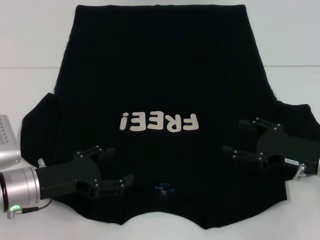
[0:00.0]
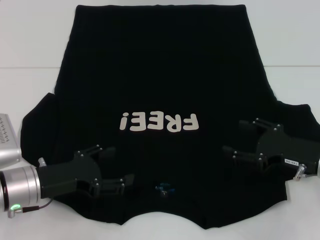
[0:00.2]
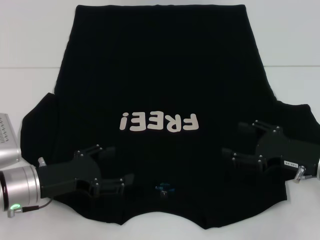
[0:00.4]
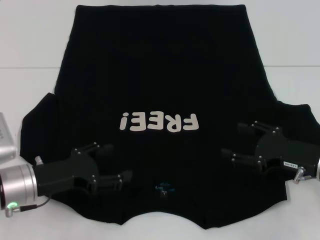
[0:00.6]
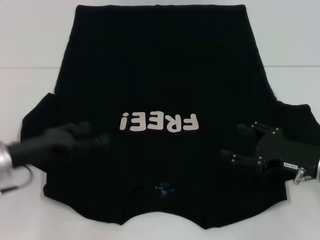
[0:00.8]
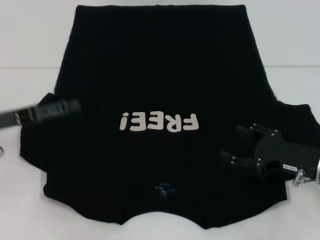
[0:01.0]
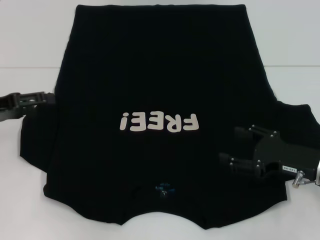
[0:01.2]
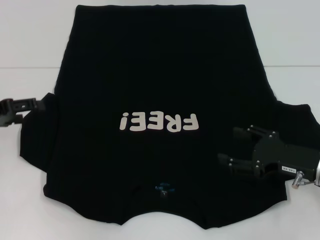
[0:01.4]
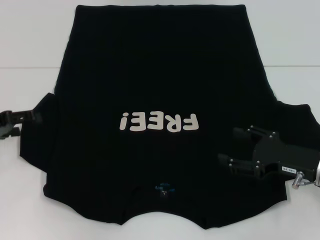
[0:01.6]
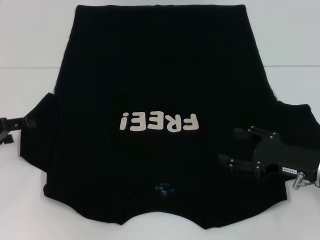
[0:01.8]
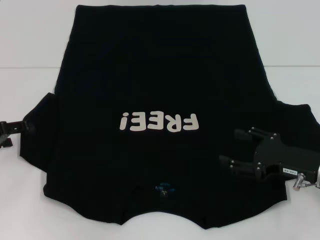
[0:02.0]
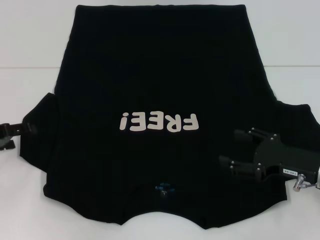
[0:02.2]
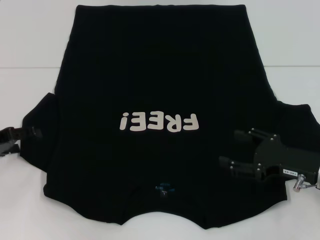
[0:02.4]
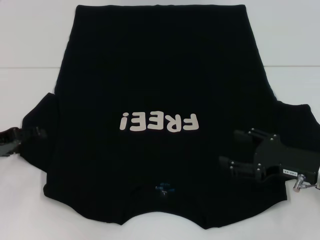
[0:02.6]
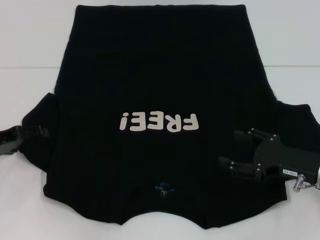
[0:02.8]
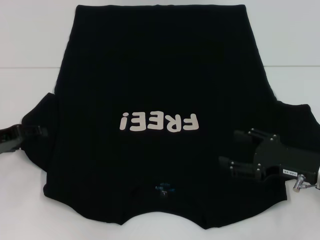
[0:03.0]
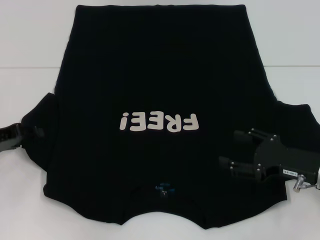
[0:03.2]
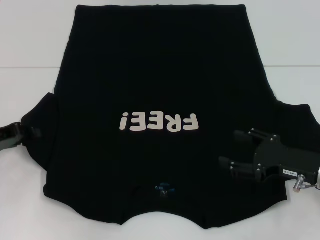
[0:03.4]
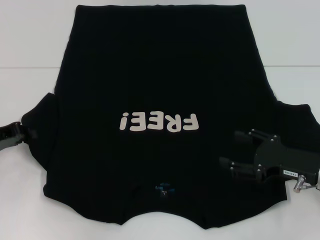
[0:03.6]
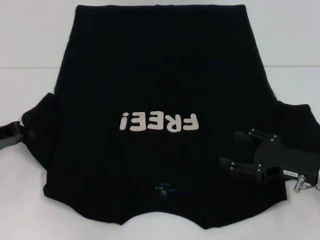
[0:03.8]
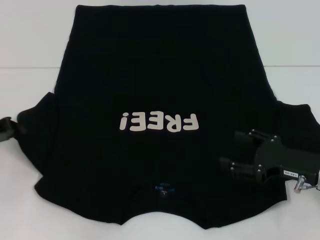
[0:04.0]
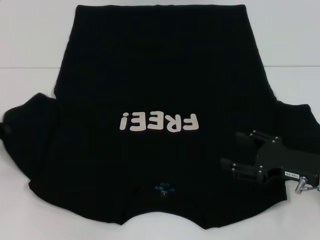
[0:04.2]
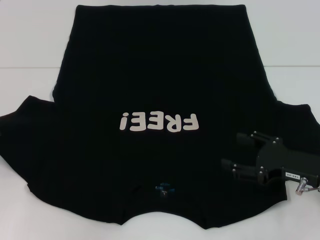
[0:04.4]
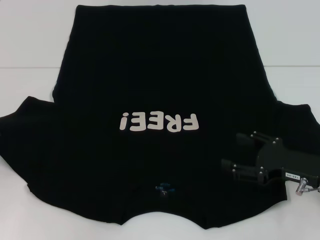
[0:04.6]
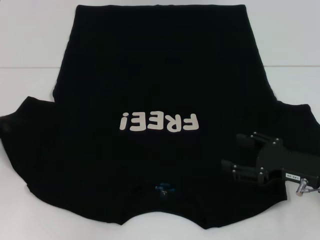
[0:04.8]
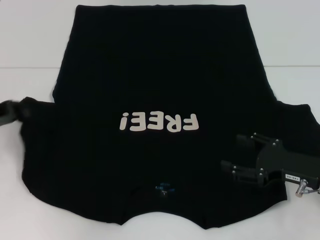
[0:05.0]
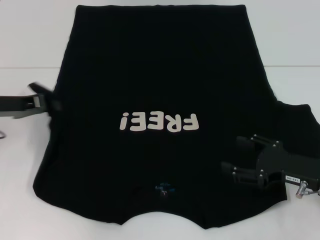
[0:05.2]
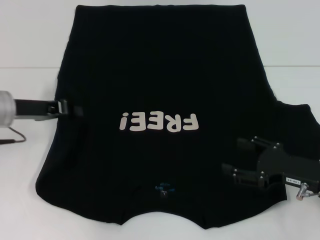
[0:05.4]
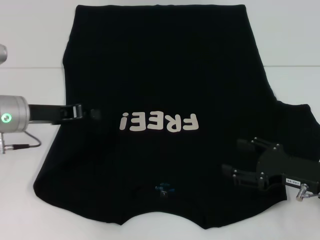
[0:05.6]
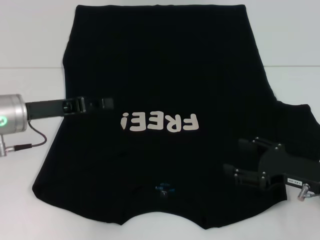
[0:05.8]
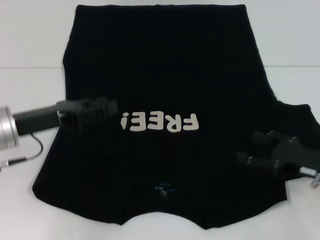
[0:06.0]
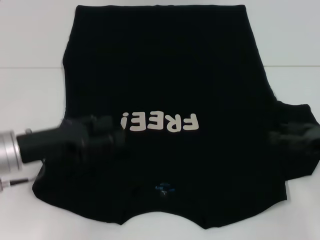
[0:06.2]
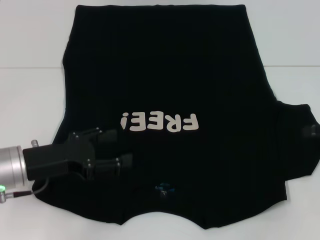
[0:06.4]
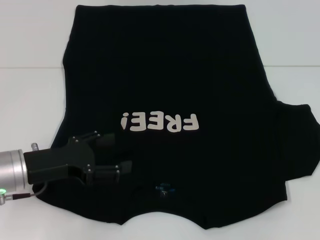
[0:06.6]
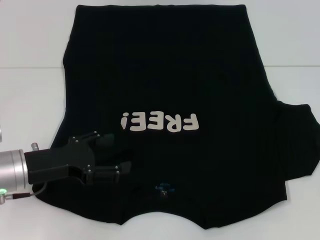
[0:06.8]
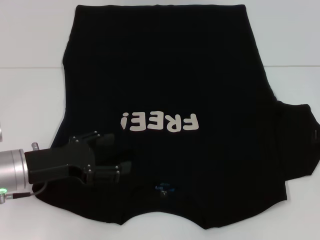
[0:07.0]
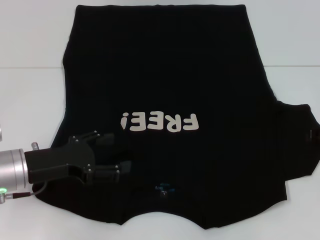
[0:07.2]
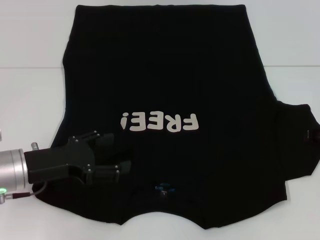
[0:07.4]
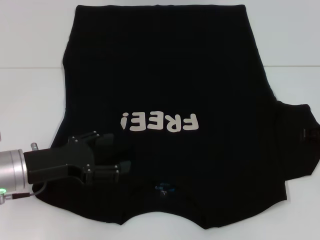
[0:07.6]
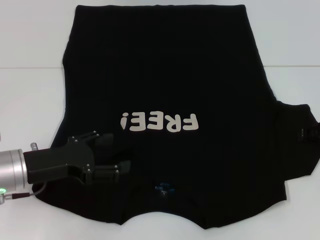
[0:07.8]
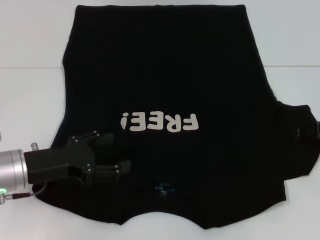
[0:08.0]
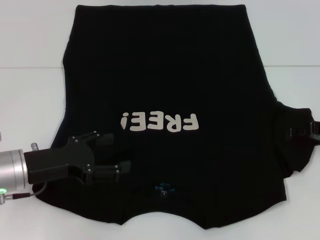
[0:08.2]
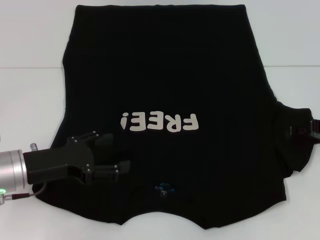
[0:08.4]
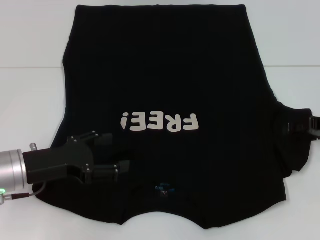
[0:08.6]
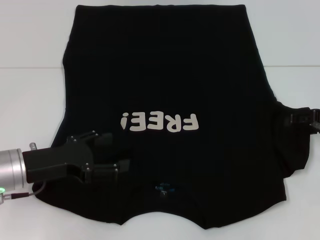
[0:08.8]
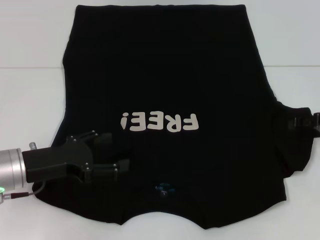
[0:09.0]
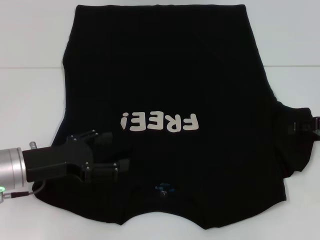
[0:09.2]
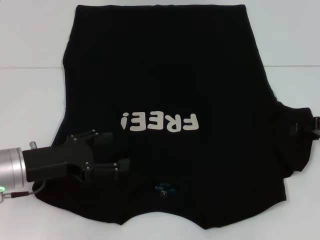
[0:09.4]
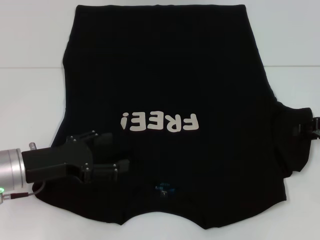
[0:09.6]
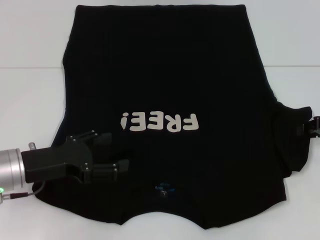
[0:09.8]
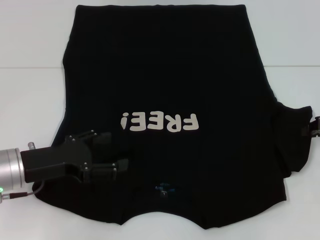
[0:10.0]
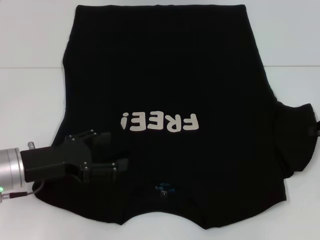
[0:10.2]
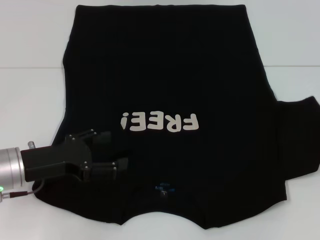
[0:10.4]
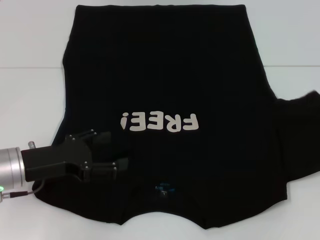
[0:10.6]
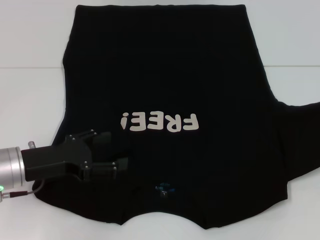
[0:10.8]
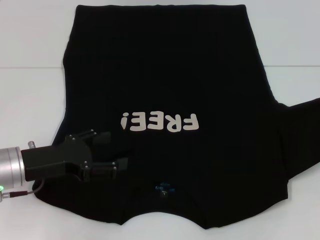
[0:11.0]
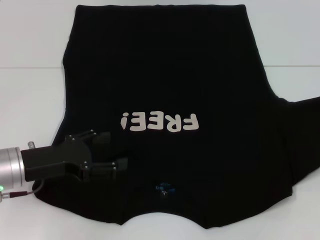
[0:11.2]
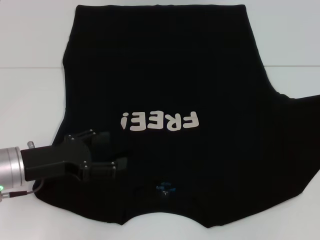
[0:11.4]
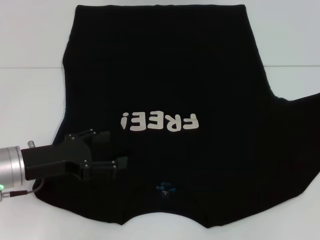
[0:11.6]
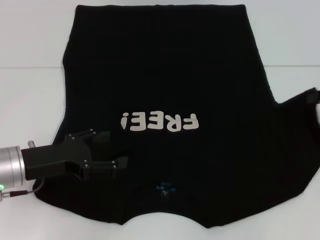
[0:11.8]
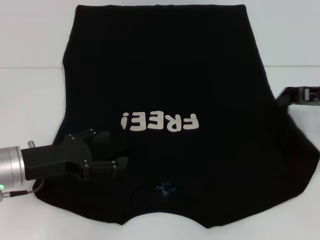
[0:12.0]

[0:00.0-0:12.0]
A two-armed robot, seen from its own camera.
Step, 0.0 to 5.8 s: Fold the bottom left sleeve with your left hand.
0.0 to 1.6 s: The left gripper heads to the left, forward and upward, covering about 15 cm.
1.6 to 3.0 s: The grippers move only a little.
3.0 to 4.4 s: The left gripper closes its fingers.
4.4 to 6.0 s: The left gripper moves to the right, approximately 15 cm.
6.0 to 7.6 s: The right gripper moves forward, upward and to the right, roughly 10 cm. Meanwhile the left gripper changes place by some 5 cm, and opens up.
7.6 to 9.0 s: There are only small adjustments of the grippers.
9.0 to 10.4 s: The right gripper closes its fingers.
10.4 to 12.0 s: The right gripper goes about 5 cm to the left.

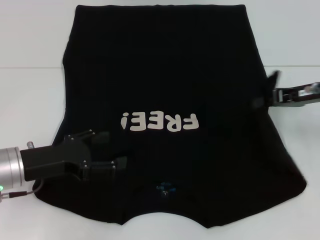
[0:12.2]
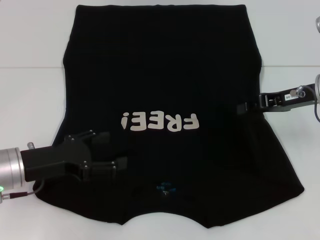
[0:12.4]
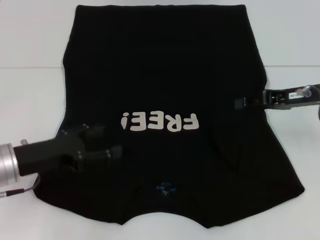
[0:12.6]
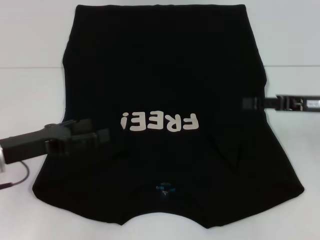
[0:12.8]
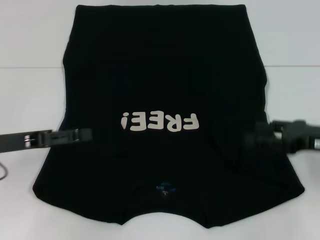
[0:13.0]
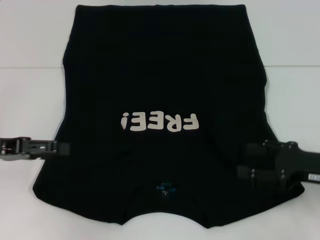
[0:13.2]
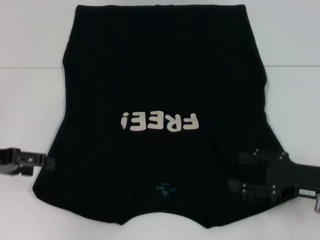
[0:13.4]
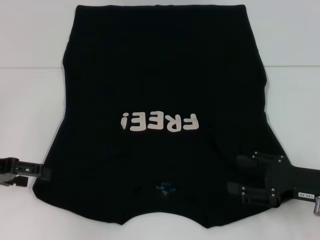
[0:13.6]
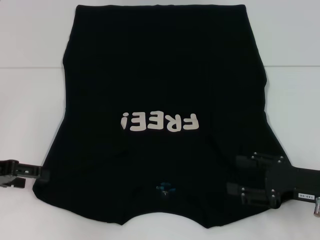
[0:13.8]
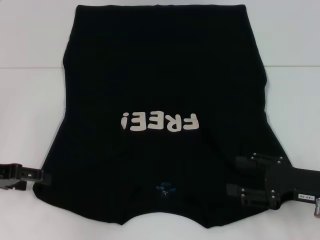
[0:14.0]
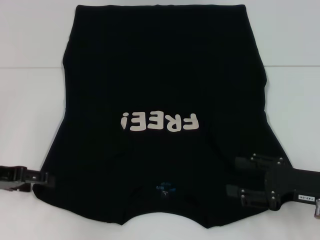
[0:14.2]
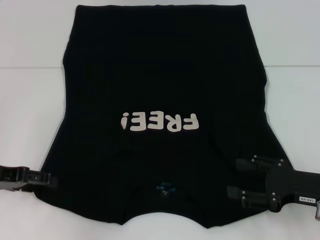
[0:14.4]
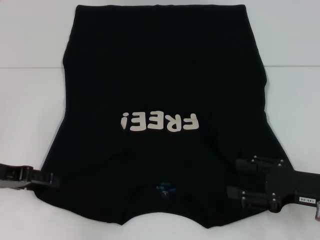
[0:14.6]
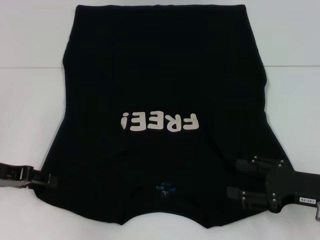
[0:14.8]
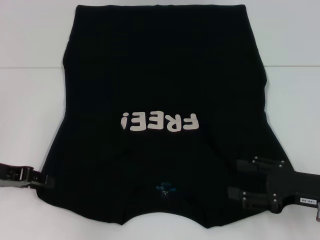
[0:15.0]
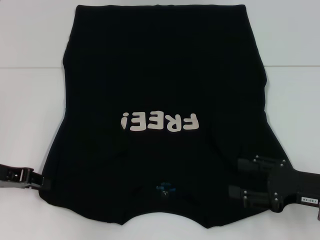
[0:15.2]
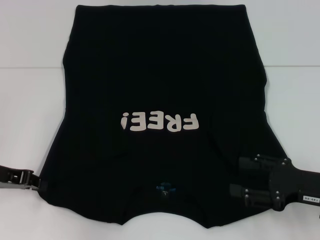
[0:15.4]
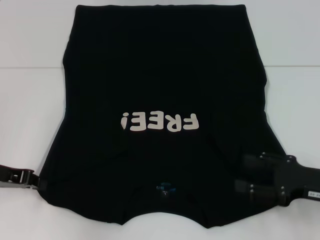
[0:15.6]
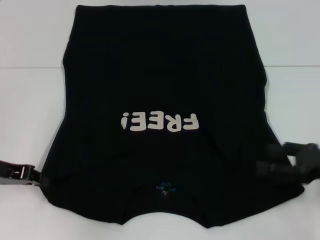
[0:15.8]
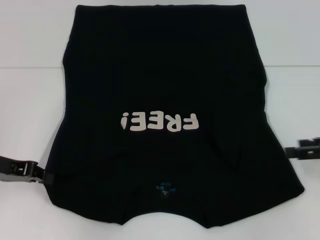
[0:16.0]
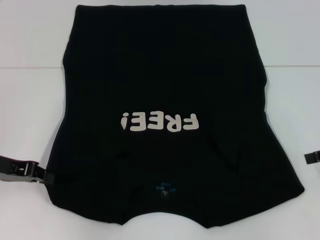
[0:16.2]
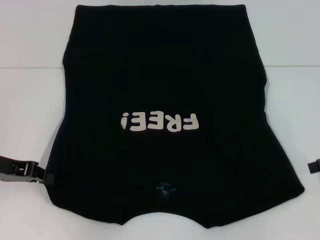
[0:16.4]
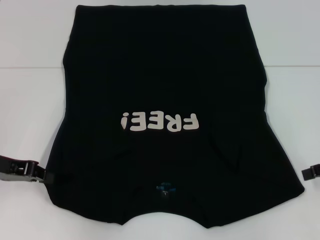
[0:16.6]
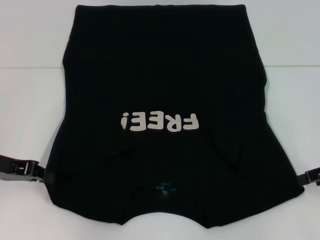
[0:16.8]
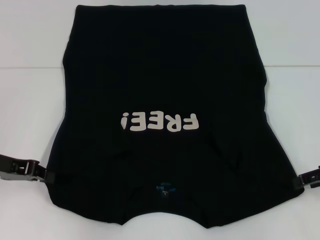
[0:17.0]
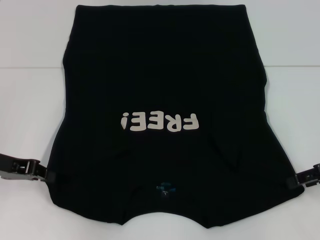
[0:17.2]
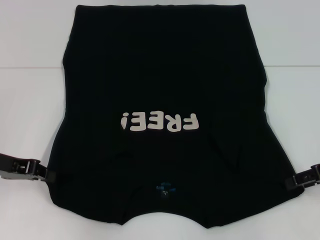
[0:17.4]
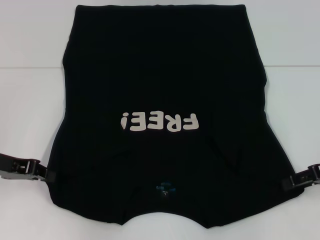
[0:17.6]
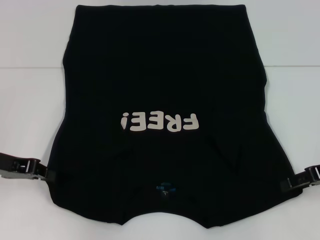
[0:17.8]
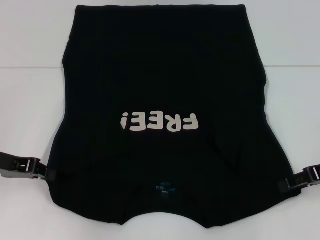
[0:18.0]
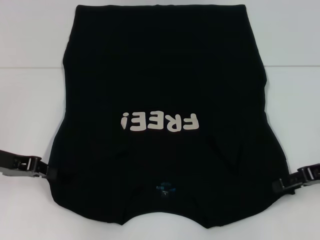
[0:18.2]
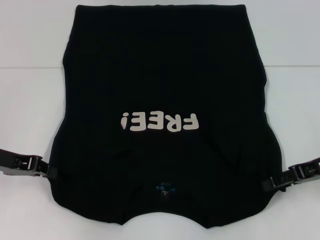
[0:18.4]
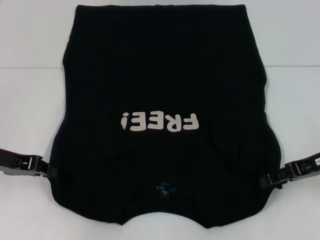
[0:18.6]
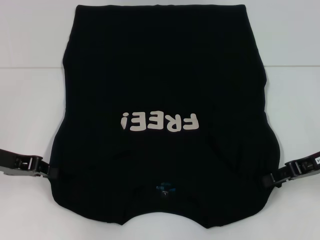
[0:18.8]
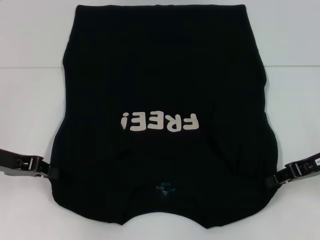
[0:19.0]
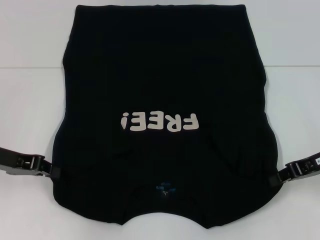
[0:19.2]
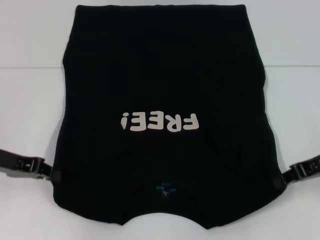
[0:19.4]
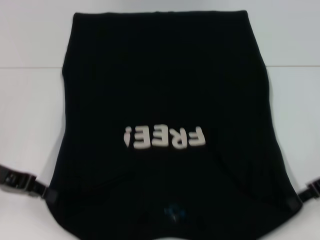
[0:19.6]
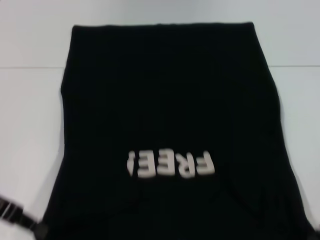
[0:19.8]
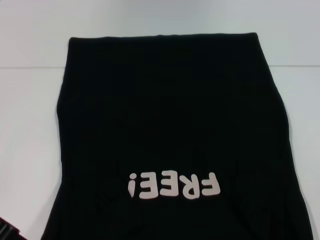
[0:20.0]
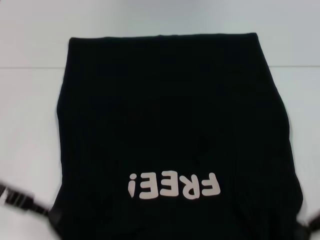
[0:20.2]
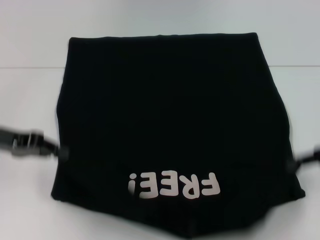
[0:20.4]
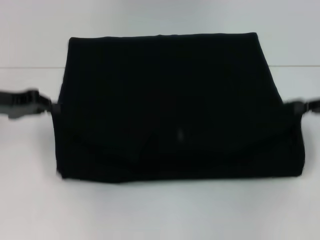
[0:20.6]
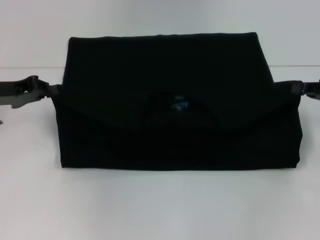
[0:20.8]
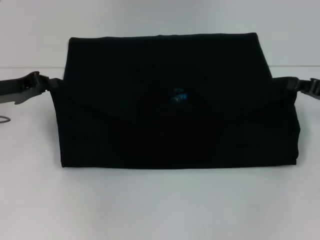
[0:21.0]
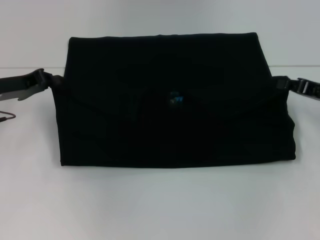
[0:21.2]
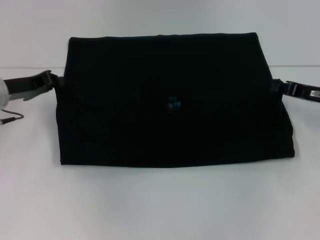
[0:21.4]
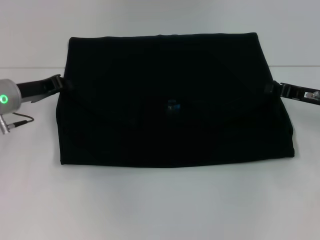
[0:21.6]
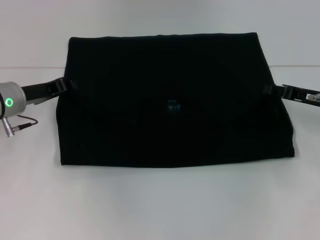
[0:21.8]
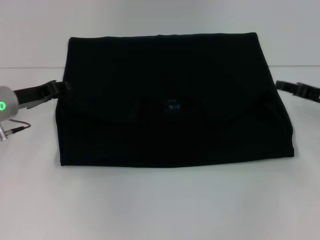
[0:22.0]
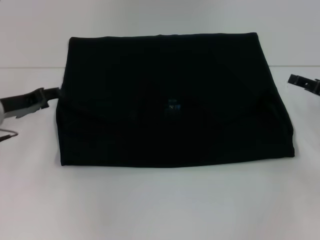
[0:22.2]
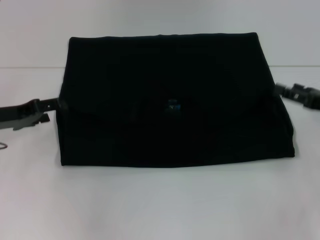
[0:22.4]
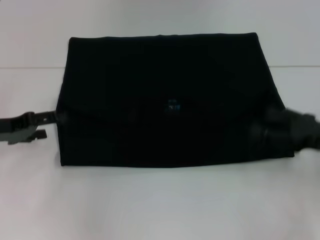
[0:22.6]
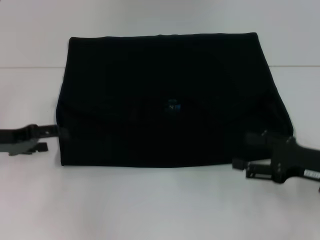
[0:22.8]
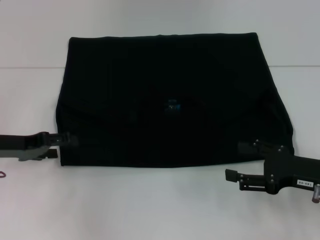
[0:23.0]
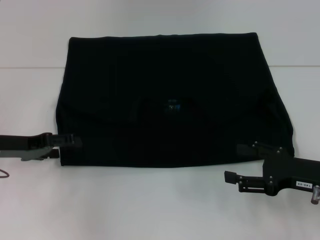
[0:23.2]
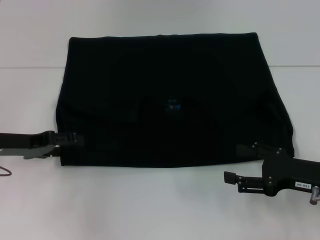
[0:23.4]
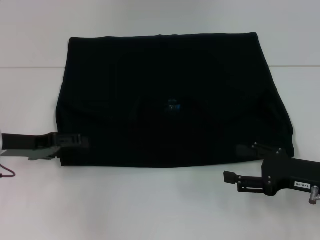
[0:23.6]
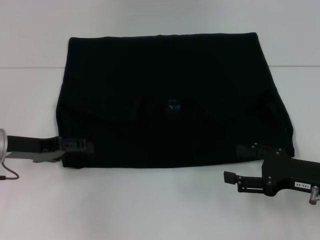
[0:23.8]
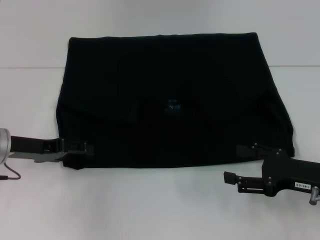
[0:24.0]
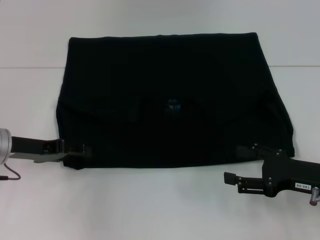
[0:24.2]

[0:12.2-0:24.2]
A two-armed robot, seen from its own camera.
Step, 13.0 to 15.6 s: Grab the bottom left corner with your left hand.
Step, 15.8 to 19.4 s: Grab the bottom right corner with your right hand.
Step, 19.6 to 22.0 s: Fold the clothes with your left hand.
Step, 19.6 to 22.0 s: Fold the clothes with your right hand.
12.2 to 13.8 s: The left gripper travels to the left by some 10 cm, while the right gripper goes some 15 cm backward and downward, and opens its fingers.
13.8 to 15.2 s: The left gripper closes its fingers.
15.2 to 16.6 s: The right gripper heads to the right, upward and forward, covering roughly 10 cm, while the left gripper closes up.
16.6 to 18.2 s: The right gripper shifts by some 5 cm.
18.2 to 19.8 s: The right gripper closes its fingers.
19.8 to 21.2 s: The two grippers go some 10 cm forward.
21.2 to 22.6 s: The right gripper shifts roughly 5 cm backward, and opens up, while the left gripper shifts by roughly 5 cm, and opens.
22.6 to 24.2 s: The right gripper ends up approximately 5 cm from where it was.
